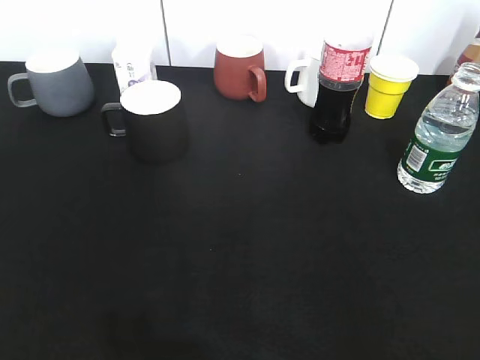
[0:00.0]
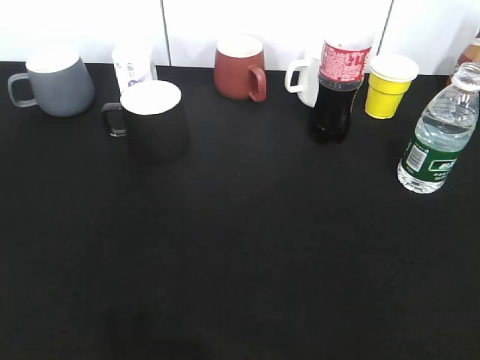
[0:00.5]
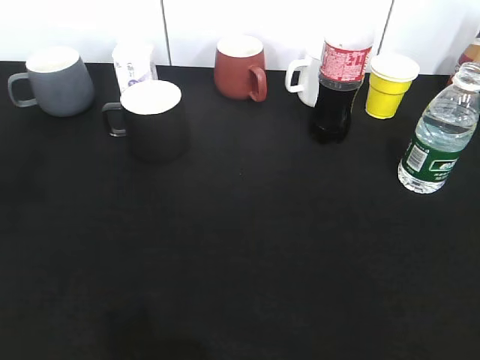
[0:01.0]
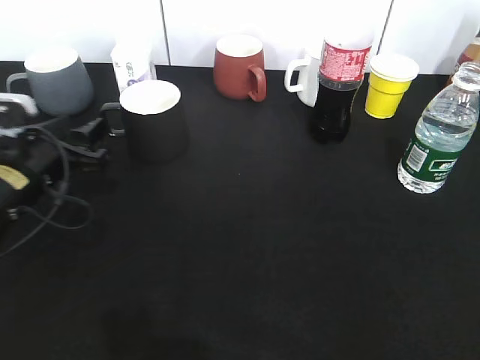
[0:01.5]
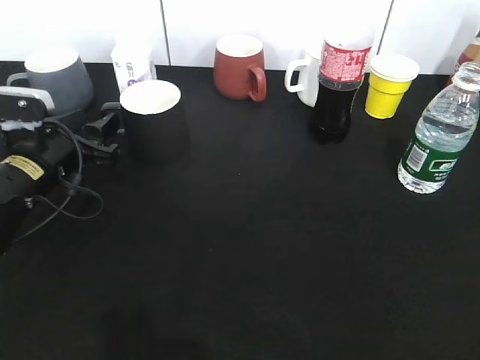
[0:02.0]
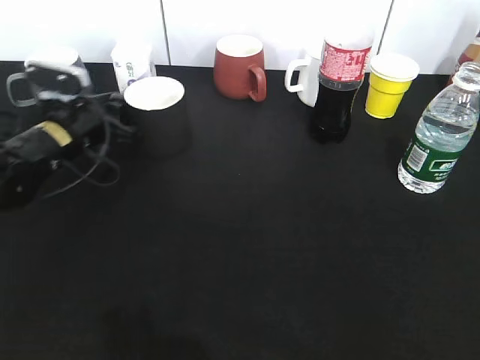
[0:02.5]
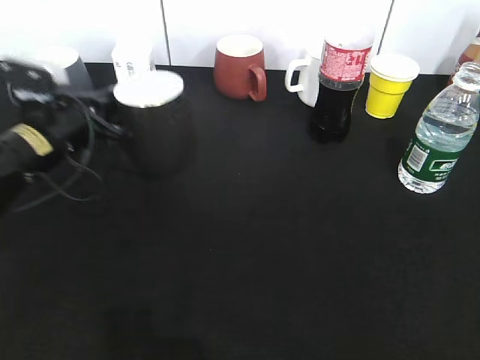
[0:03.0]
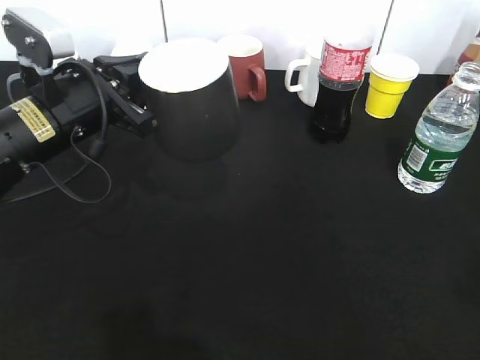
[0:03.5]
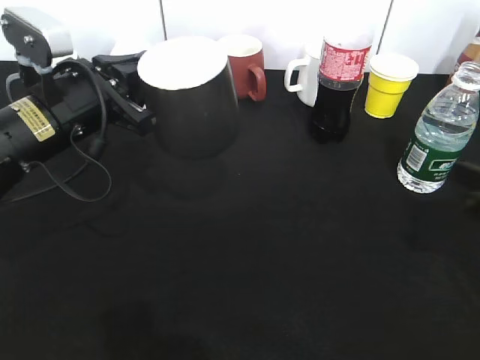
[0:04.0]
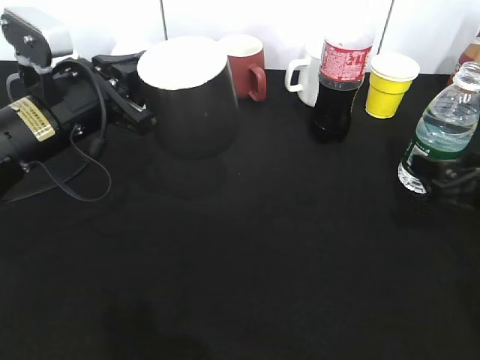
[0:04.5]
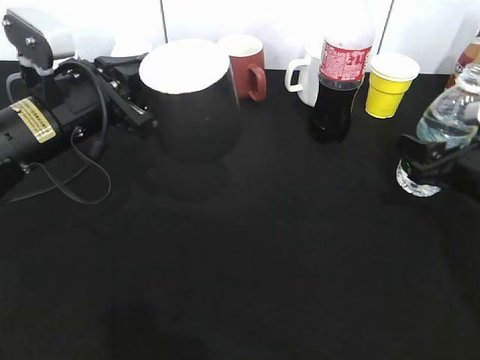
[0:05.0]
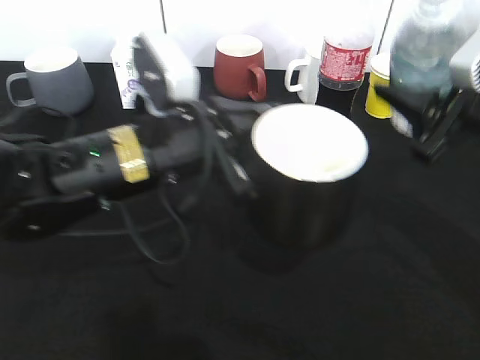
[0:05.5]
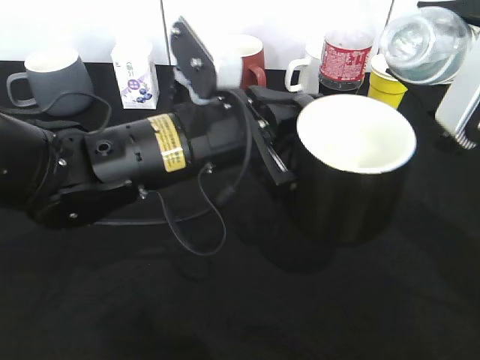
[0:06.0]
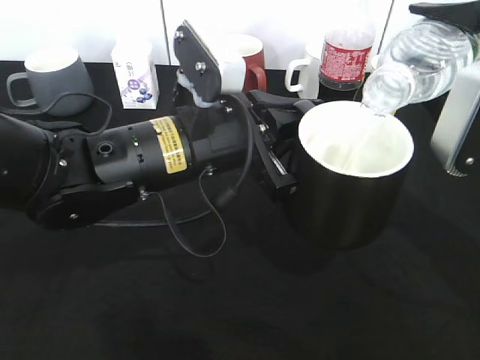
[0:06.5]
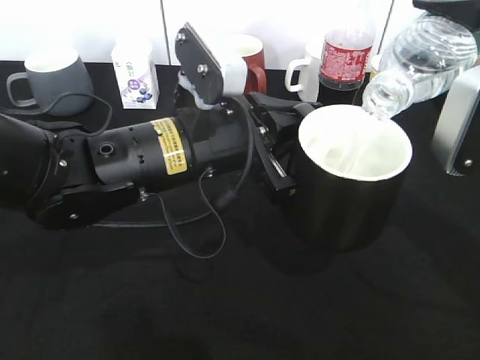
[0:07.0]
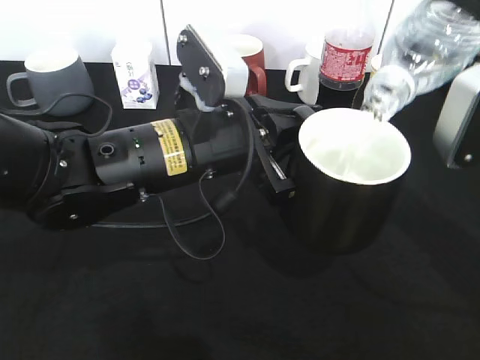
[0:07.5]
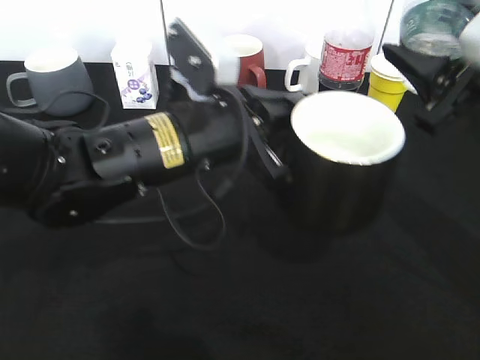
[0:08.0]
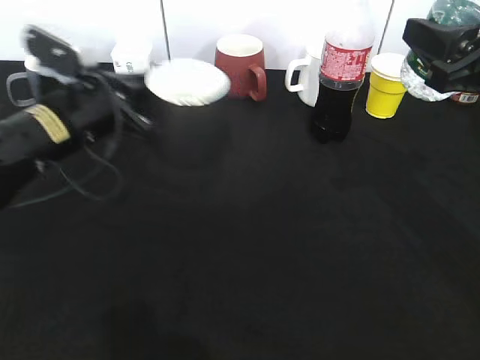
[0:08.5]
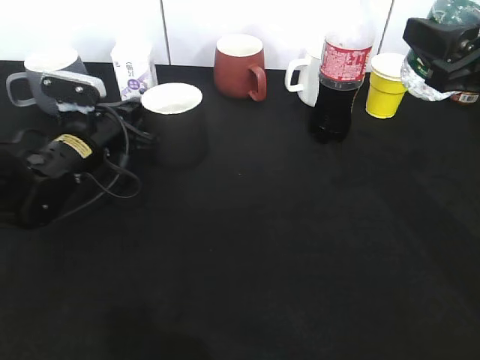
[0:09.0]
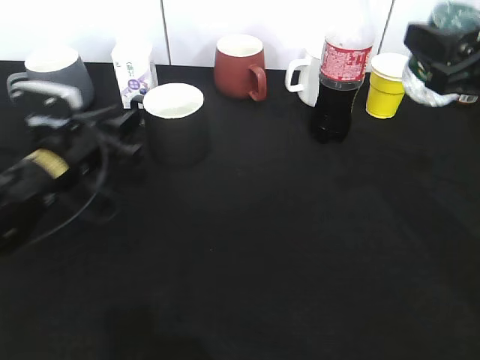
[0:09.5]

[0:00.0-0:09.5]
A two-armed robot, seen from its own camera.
Step, 0:00.0 to 0:02.5: Grasp the black cup with left gripper.
Step, 0:03.0 to 0:03.5: Lift the black cup with left gripper.
Step, 0:04.0 to 0:04.5: Grasp the bottle with water with right gripper.
Step, 0:05.0 to 0:07.5: Pour the water from bottle to cup with right gripper.
Step, 0:08.0 to 0:09.0: Place the black cup on the table with left gripper.
0:00.0 to 0:02.0: The left gripper moves forward and downward, roughly 35 cm.
0:02.0 to 0:04.0: The left gripper shifts roughly 10 cm upward and to the right, and closes up. Meanwhile the right gripper heads forward and downward, covering roughly 20 cm.
0:04.0 to 0:05.5: The left gripper moves to the right and backward, about 10 cm. The right gripper goes approximately 10 cm upward and to the left, and closes up.
0:07.5 to 0:09.5: The left gripper moves to the left, downward and forward, about 20 cm, and opens its fingers.

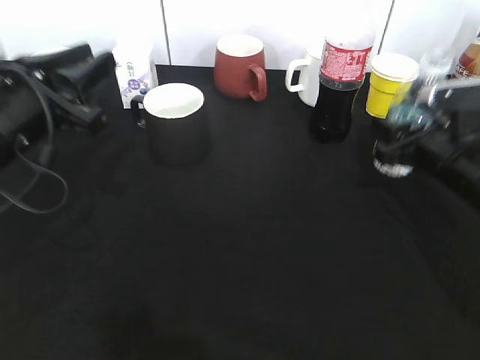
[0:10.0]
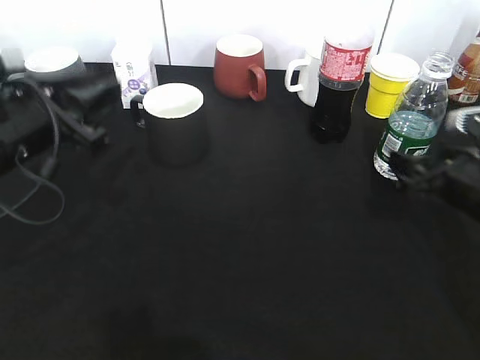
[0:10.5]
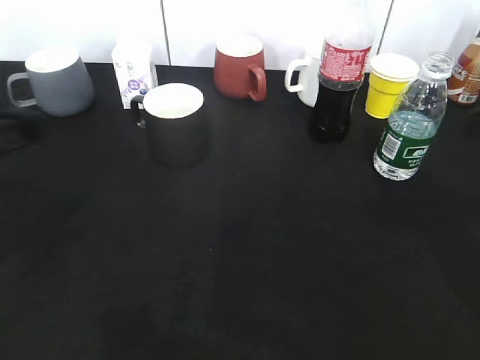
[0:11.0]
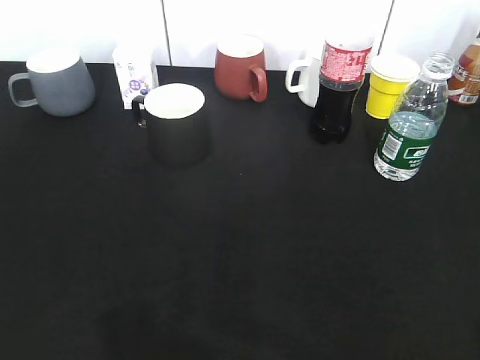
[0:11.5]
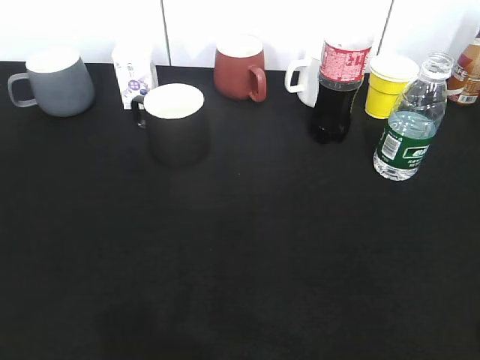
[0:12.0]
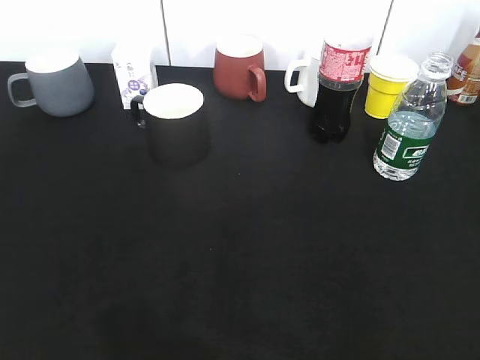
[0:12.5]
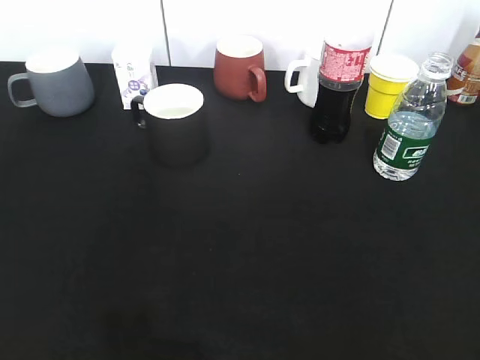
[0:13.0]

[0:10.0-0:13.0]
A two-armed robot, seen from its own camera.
0:10.0 to 0:11.5: The right gripper goes roughly 35 cm backward and upward, and opens its fingers. Meanwhile the left gripper heads backward and to the left, covering approximately 25 cm.
0:11.5 to 0:13.0: The right gripper closes its fingers.
